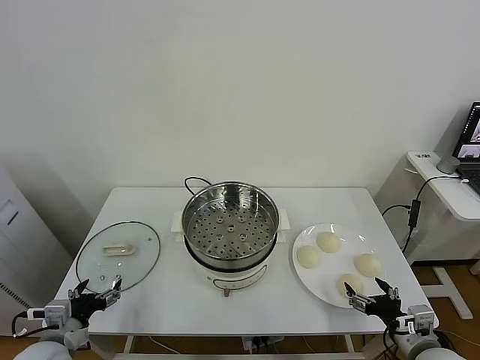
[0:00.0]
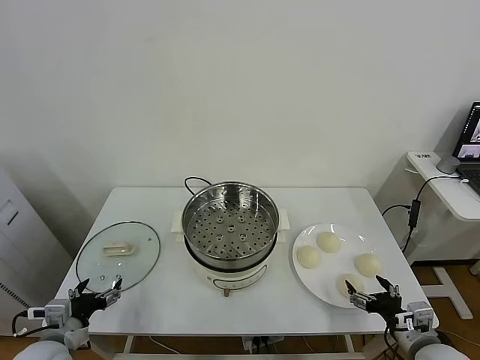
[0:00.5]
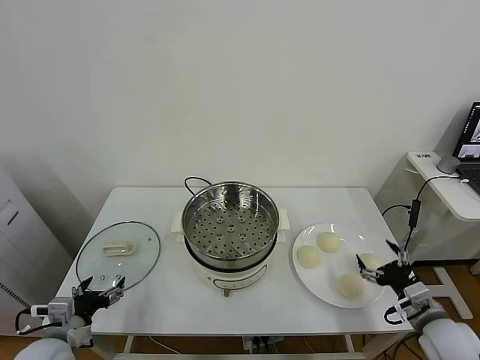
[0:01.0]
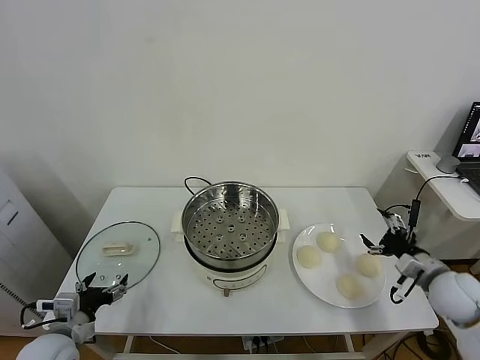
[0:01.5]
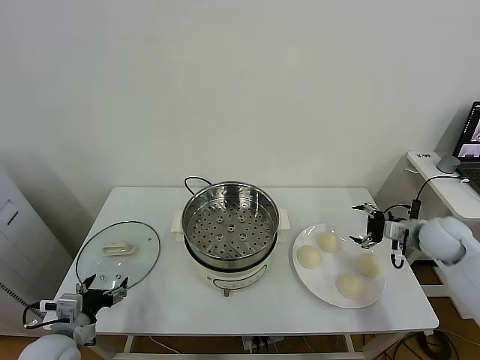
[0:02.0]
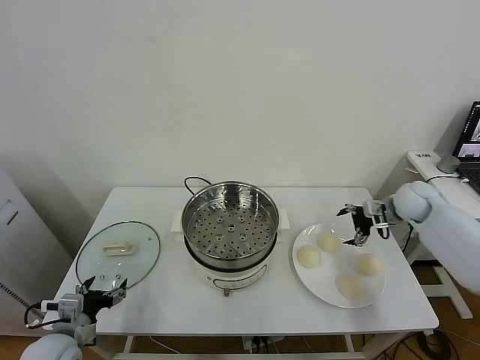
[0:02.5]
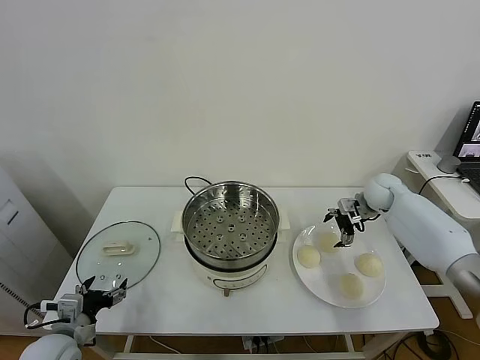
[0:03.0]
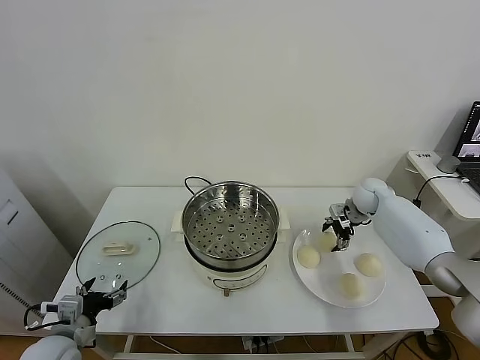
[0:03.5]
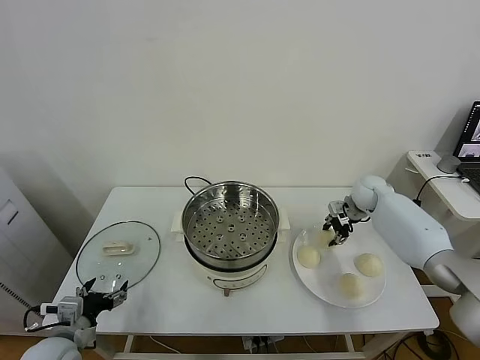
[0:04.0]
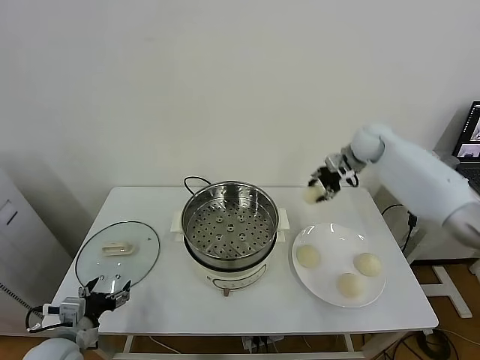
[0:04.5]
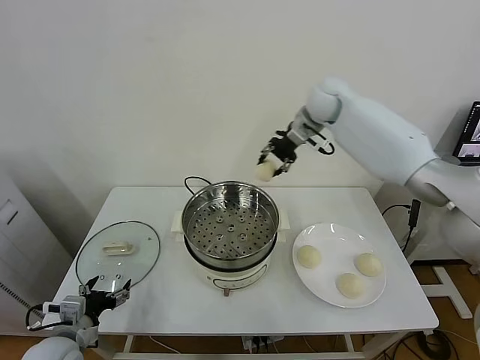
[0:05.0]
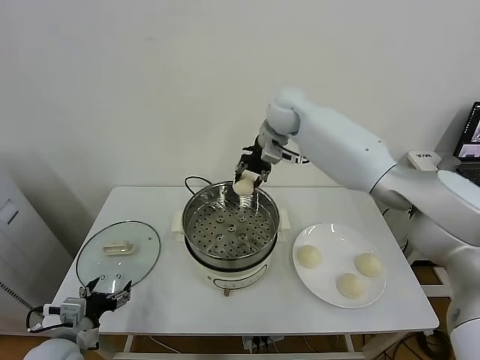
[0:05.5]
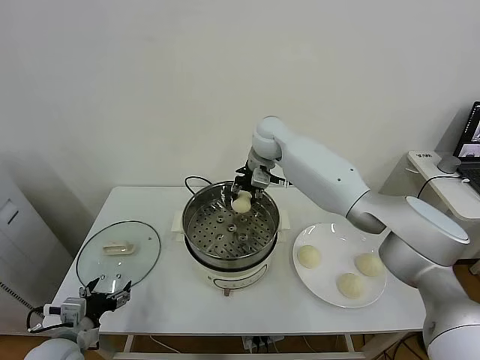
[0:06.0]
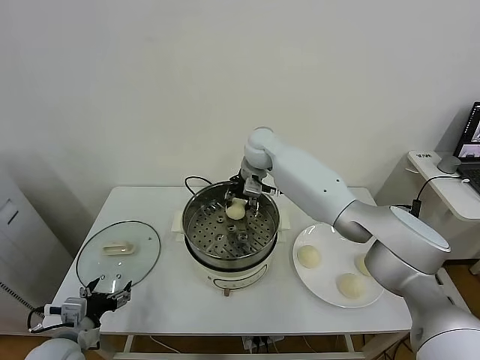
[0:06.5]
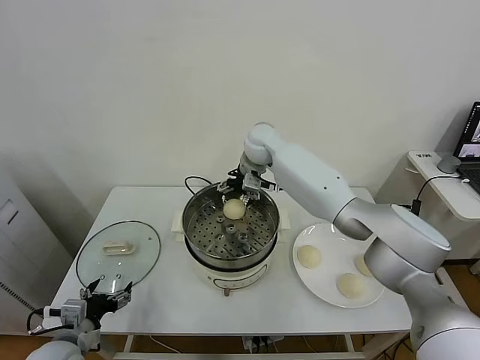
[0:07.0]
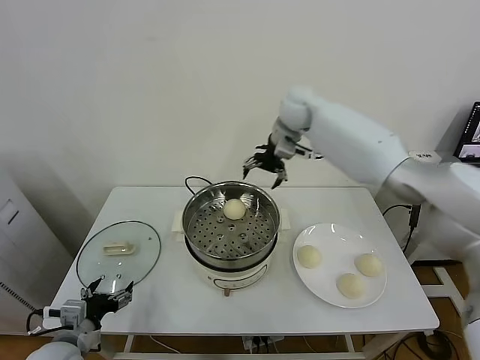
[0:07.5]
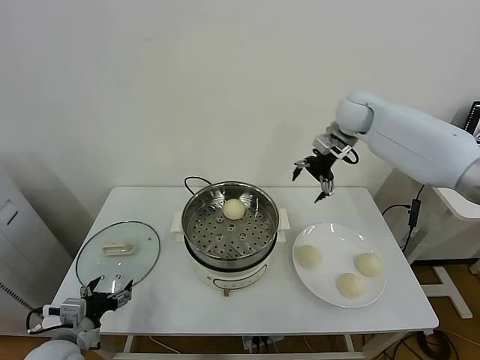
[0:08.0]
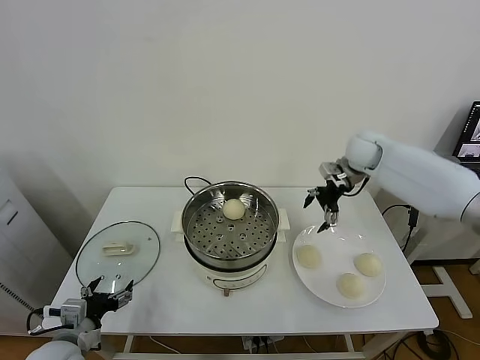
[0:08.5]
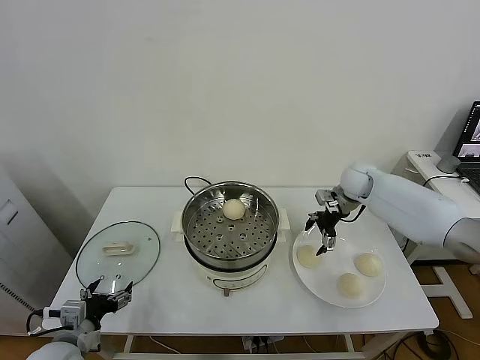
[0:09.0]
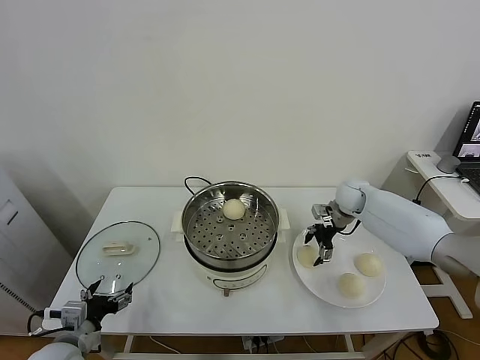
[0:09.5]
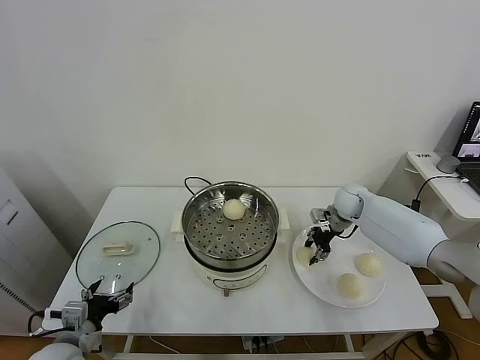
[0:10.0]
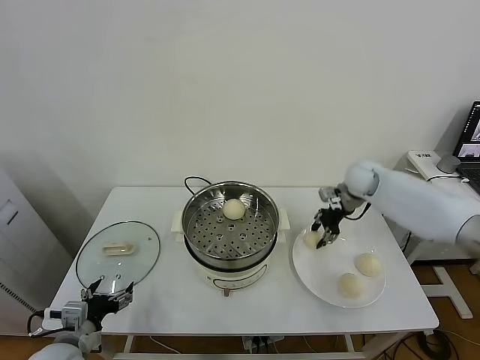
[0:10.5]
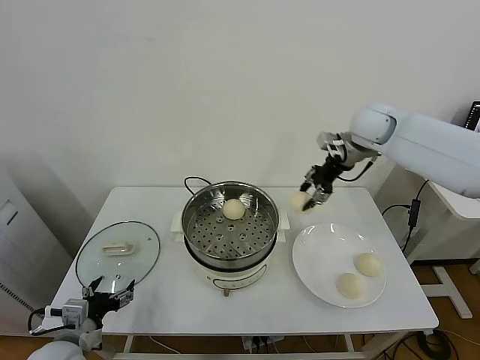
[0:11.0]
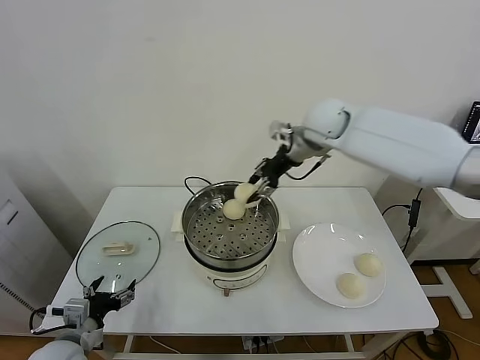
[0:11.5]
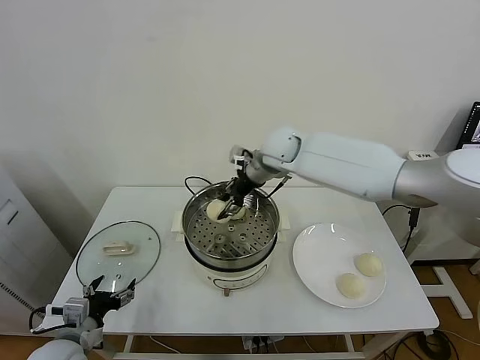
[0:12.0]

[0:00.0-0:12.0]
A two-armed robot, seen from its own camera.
Task of the whole recording: take steamed baozi put them in steamer.
Step, 0.0 to 3.5 s: Grasp the baozi in the plate with right gripper.
Step, 4.0 to 6.5 s: Place the baozi on the steamer with right gripper.
Step, 7.0 to 9.5 s: Grasp the baozi in the plate with right gripper.
2.0 to 4.0 s: The right gripper travels forward and to the left by some 15 cm, and closes its fingers.
4.0 to 6.0 s: The right gripper goes approximately 30 cm to the left and upward.
6.0 to 8.0 s: The right gripper is displaced to the right by approximately 20 cm, and opens up.
8.0 to 10.0 s: The right gripper shifts about 25 cm downward, and closes.
10.0 to 12.0 s: The right gripper goes about 30 cm to the left and upward.

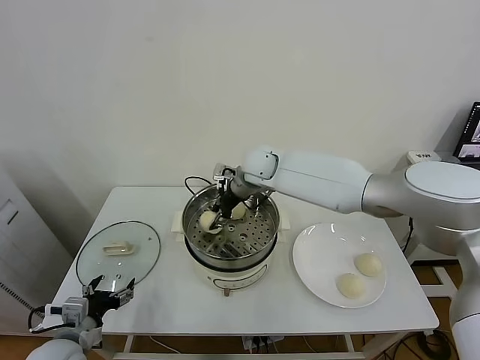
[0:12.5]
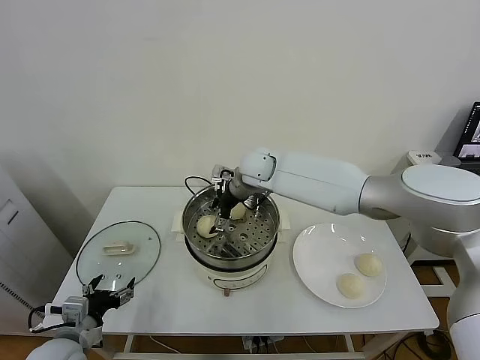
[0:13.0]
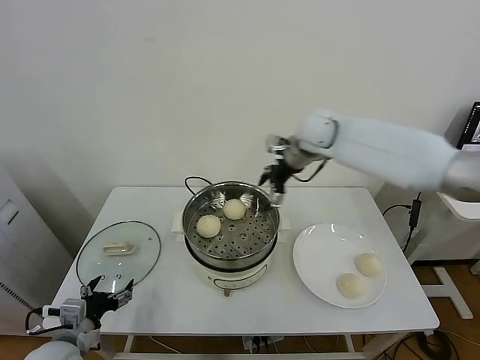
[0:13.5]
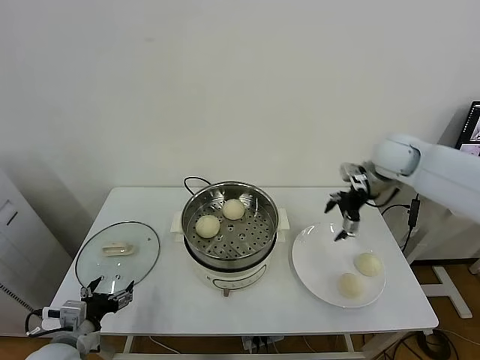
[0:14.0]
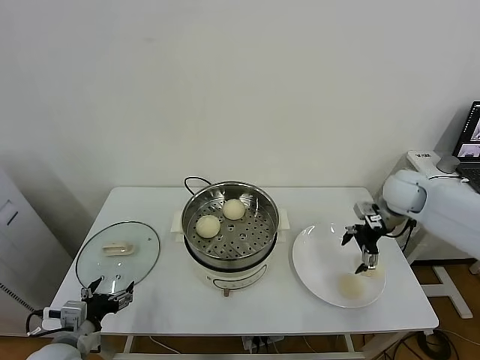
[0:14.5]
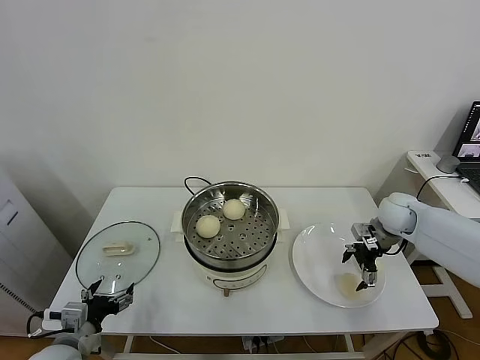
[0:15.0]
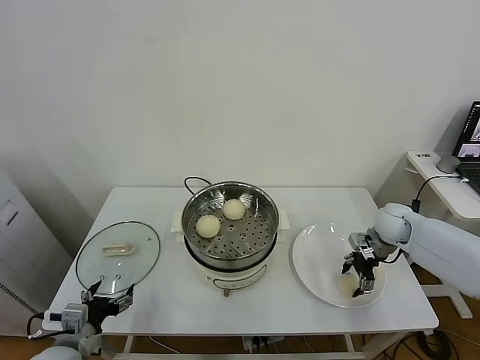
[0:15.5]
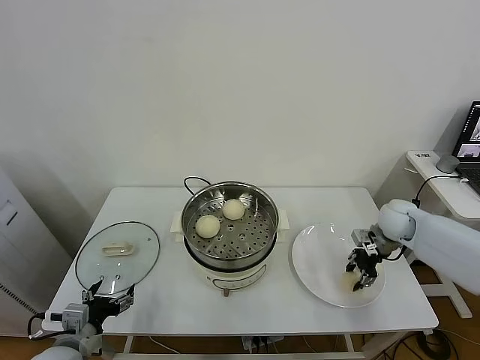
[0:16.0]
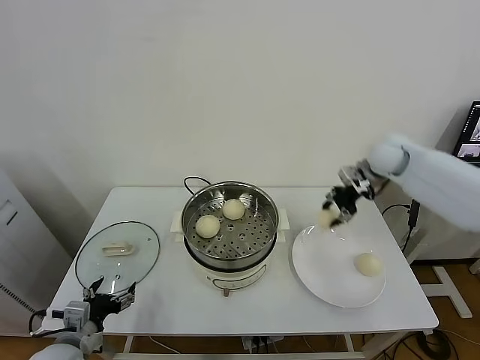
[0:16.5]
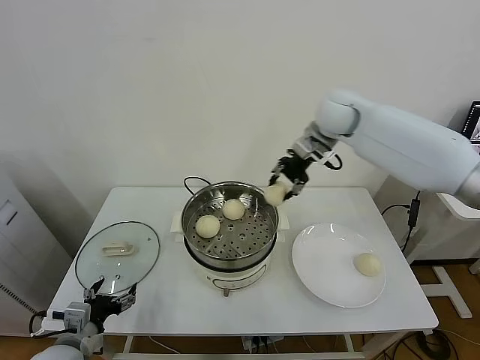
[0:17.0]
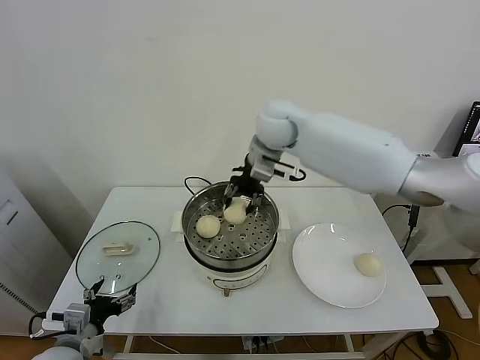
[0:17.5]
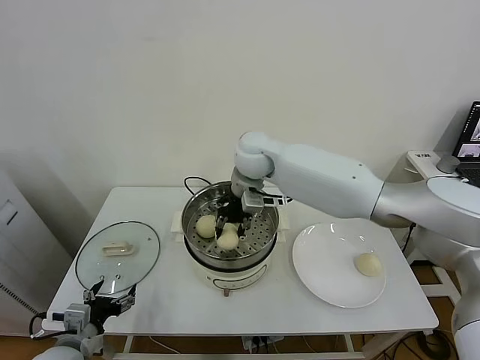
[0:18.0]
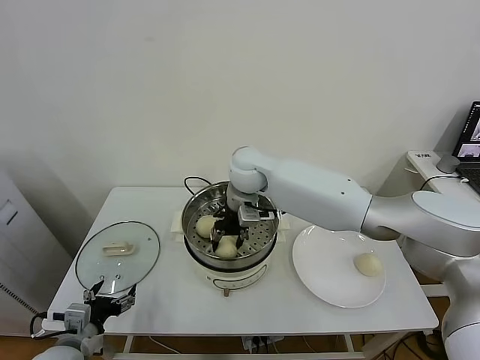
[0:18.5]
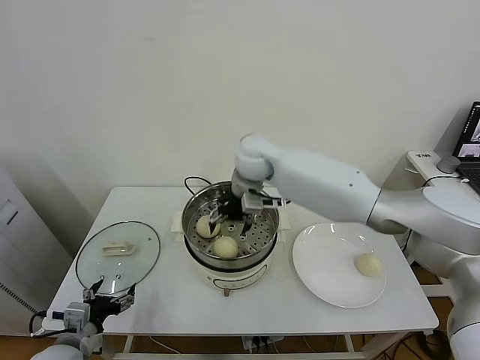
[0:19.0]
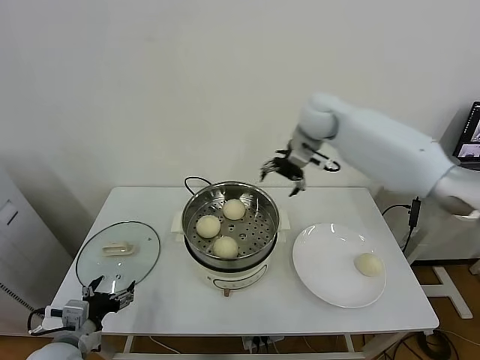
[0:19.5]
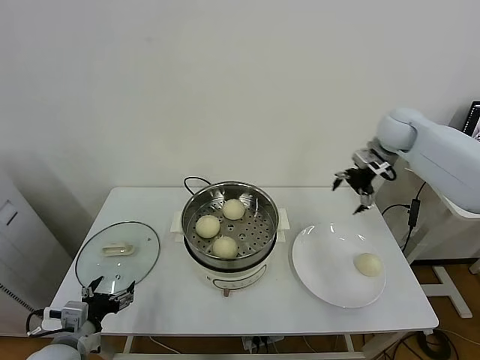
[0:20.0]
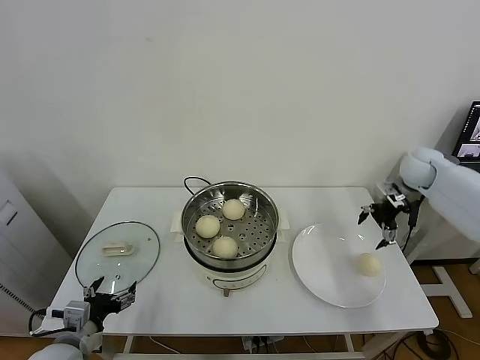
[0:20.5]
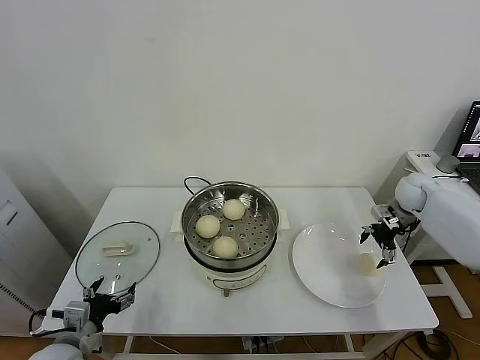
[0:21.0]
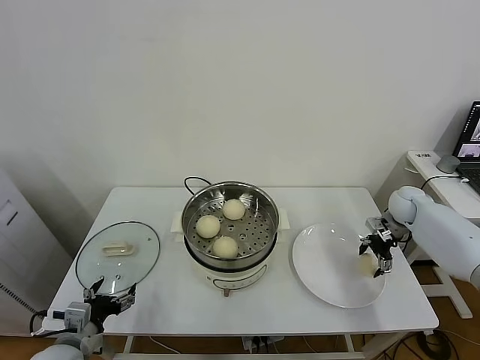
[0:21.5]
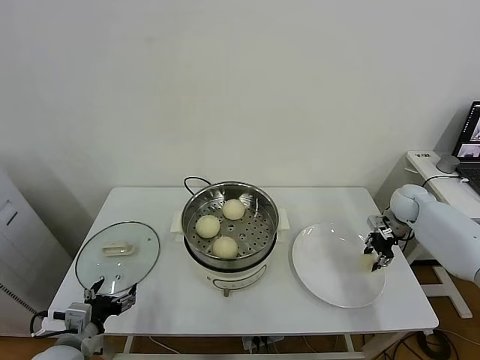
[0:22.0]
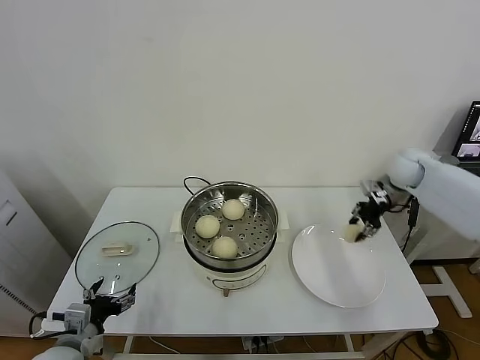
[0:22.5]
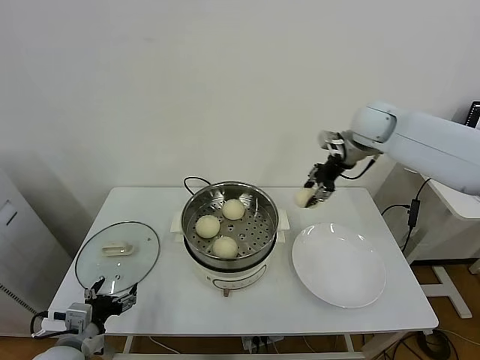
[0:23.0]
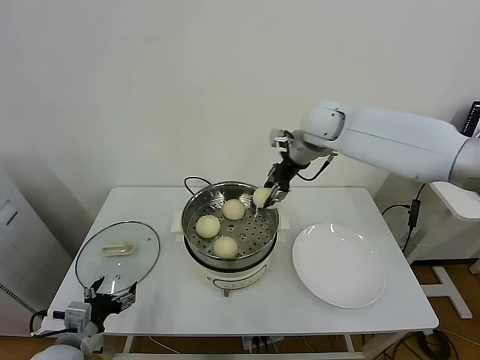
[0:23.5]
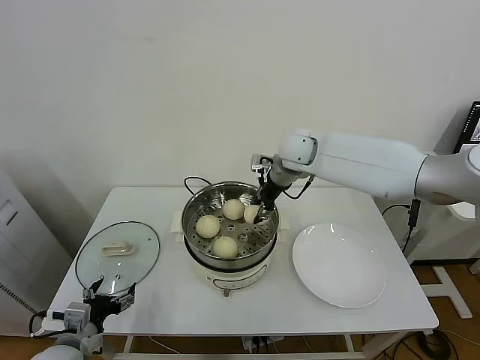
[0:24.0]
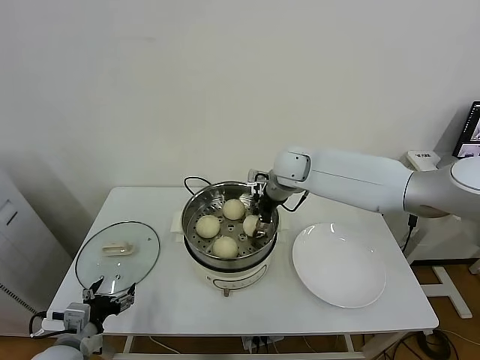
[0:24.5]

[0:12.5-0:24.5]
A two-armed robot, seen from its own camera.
Task of the whole recording: take steamed baozi put them in steamer.
Step, 13.5 to 15.5 s: Grasp the baozi in the plate with right gripper.
Step, 16.0 to 19.0 s: Place the baozi on the steamer with right gripper.
Step, 19.5 to 21.5 s: Grasp the baozi in the plate with right gripper.
12.5 to 14.5 s: The right gripper travels to the right by roughly 35 cm, and opens up.
14.5 to 16.5 s: The right gripper is displaced upward, forward and to the left by about 15 cm, and closes its fingers.
16.5 to 18.5 s: The right gripper travels to the left by about 30 cm.
18.5 to 20.5 s: The right gripper heads to the right, covering about 40 cm, and opens.
20.5 to 22.5 s: The right gripper reaches some 10 cm downward, then returns, and closes up.
22.5 to 24.5 s: The right gripper is displaced to the left by roughly 30 cm, and opens up.

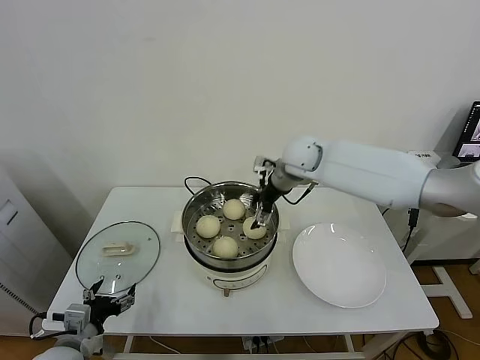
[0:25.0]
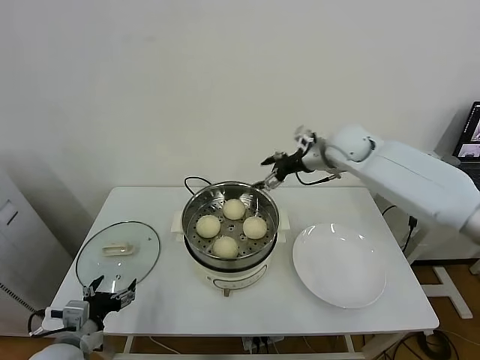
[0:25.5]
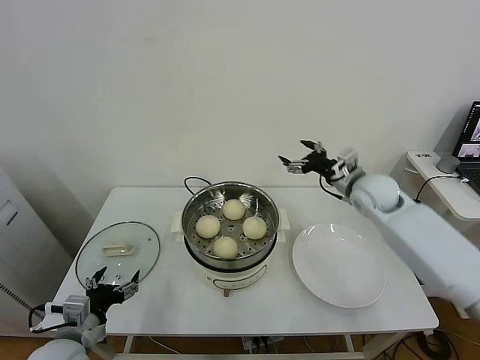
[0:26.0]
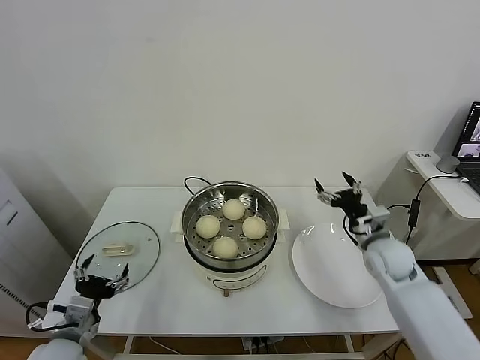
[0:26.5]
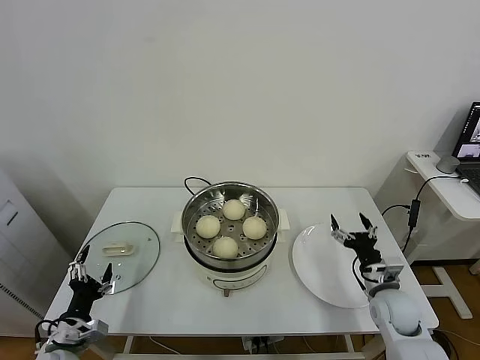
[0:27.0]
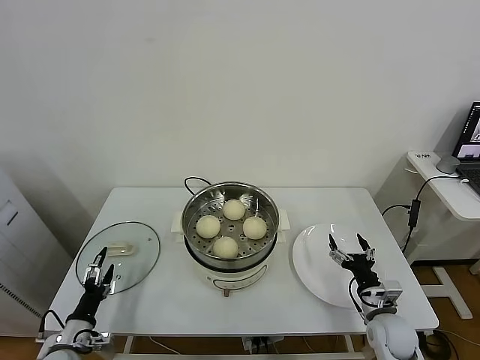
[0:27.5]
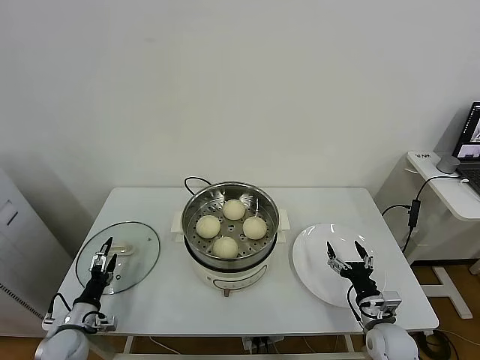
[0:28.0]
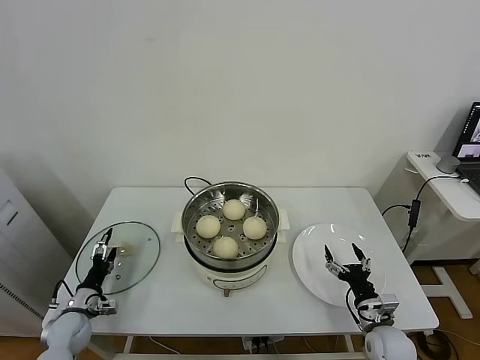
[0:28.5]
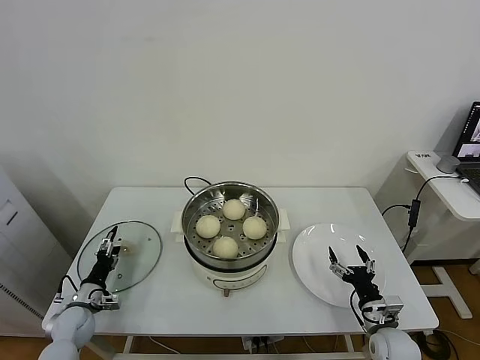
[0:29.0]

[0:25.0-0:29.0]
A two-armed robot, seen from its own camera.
Task of the whole recording: take steamed baozi put them in steamer.
25.0 to 27.0 s: The right gripper travels downward, backward and to the right by some 40 cm.
27.0 to 29.0 s: The left gripper moves forward, downward and to the left, approximately 15 cm; the right gripper is displaced downward and backward by approximately 10 cm.
